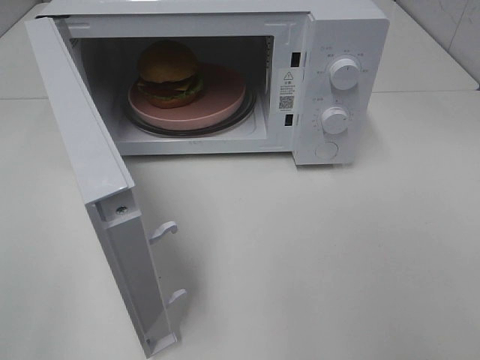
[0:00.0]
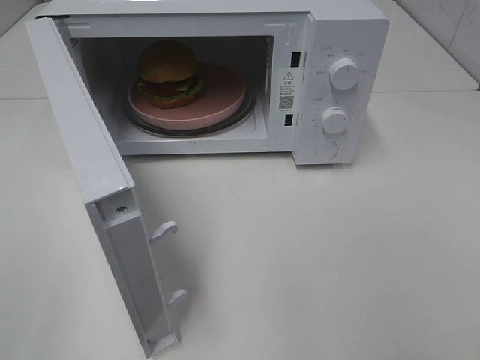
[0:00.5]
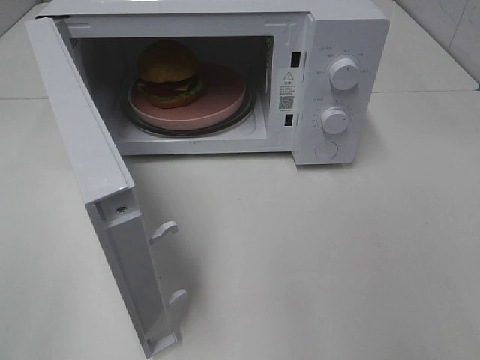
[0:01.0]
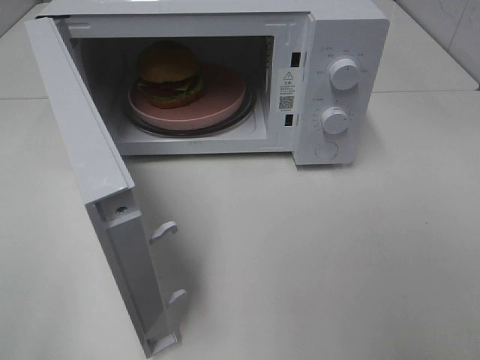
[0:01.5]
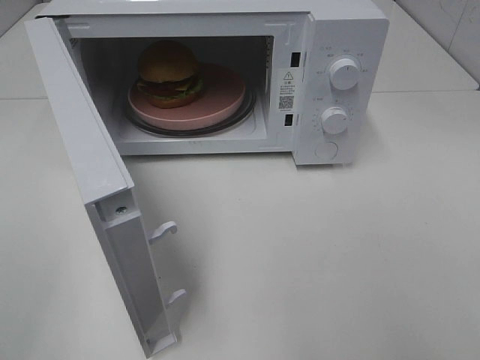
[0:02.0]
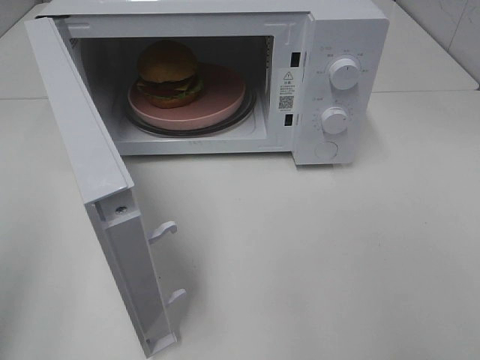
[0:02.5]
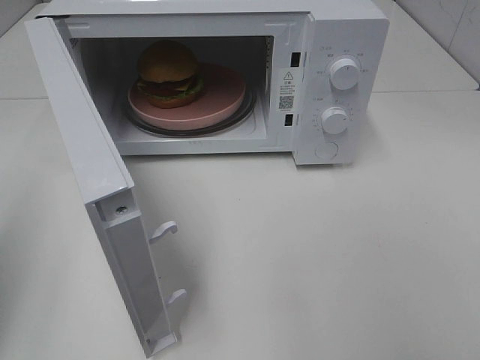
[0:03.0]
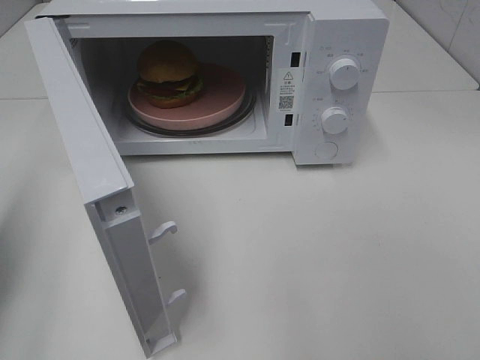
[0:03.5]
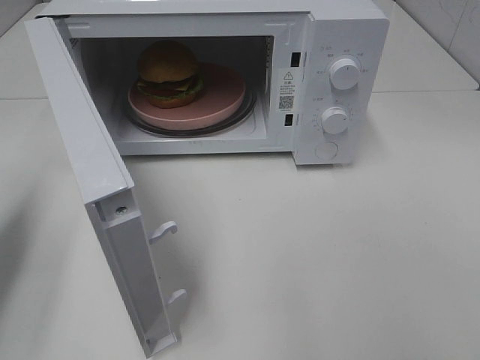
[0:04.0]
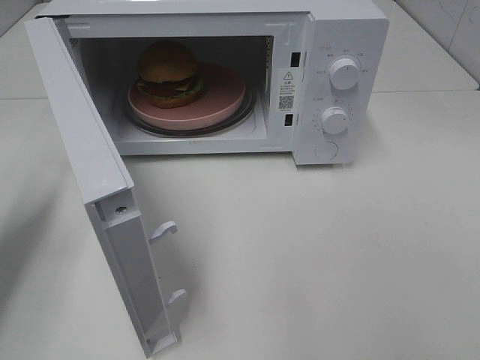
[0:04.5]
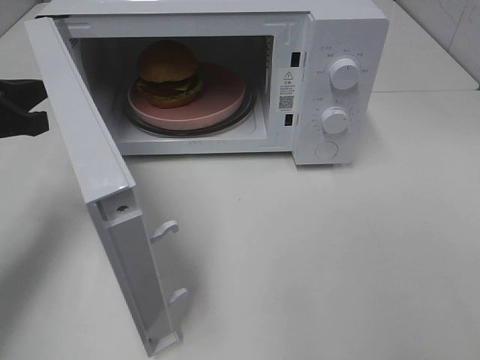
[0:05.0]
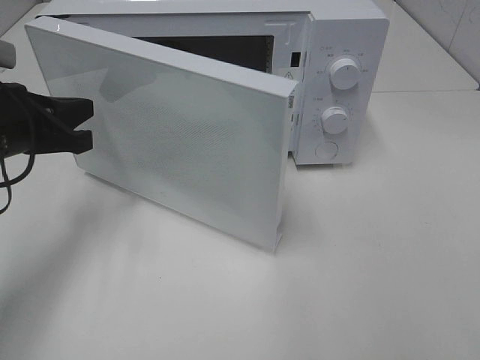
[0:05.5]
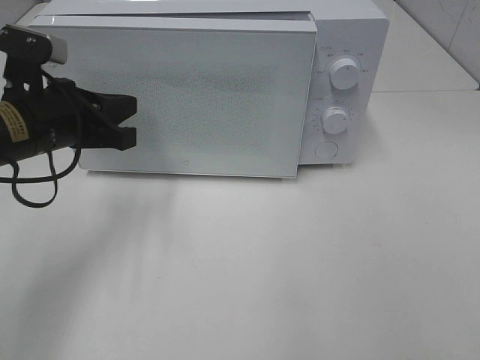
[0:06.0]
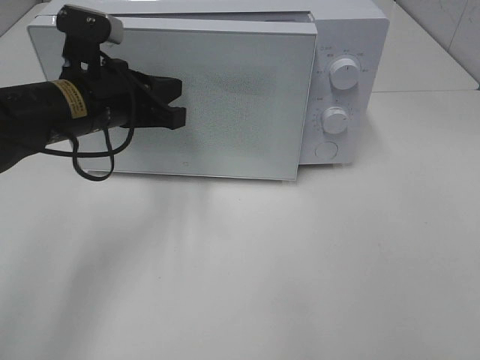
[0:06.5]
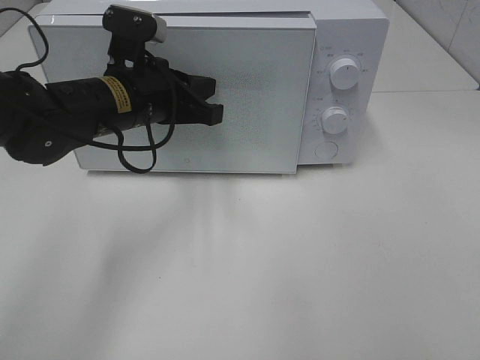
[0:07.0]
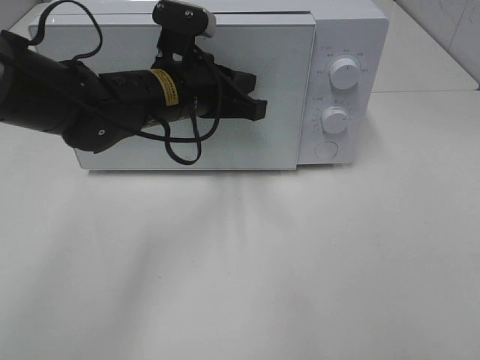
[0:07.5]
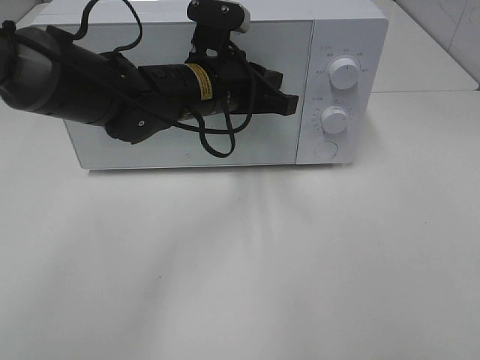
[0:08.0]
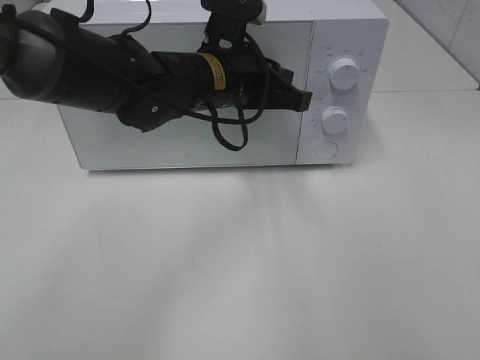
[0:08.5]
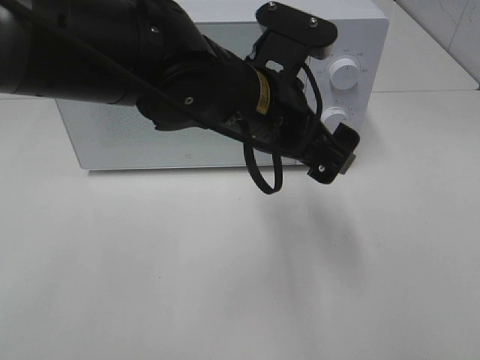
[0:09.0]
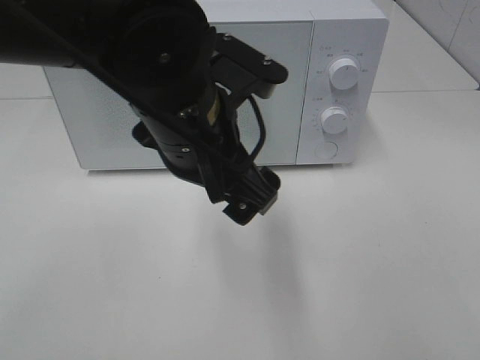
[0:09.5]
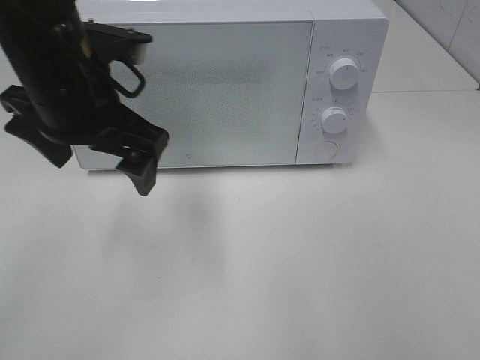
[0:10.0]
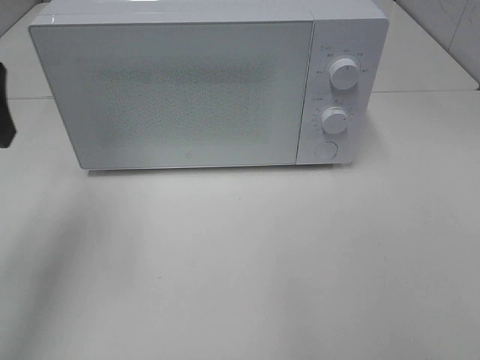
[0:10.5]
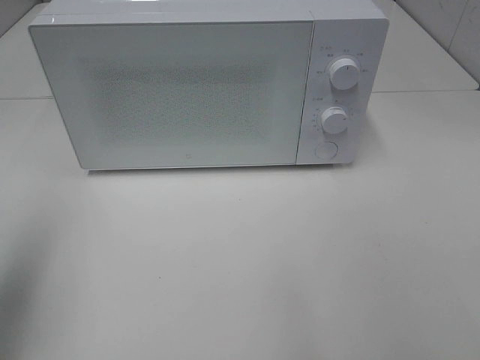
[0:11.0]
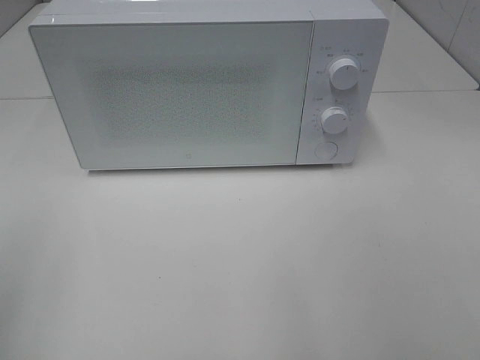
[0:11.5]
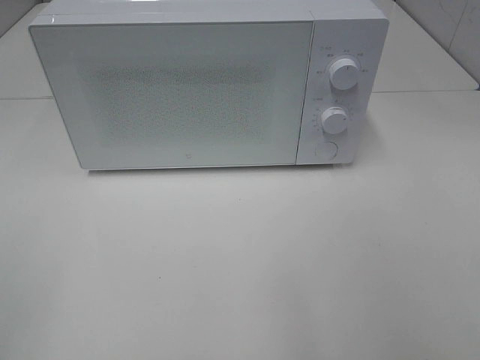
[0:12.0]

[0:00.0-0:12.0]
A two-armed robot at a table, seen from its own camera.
Task of the whole recording: Heat the burger.
Step, 0:00.0 to 0:07.5: Left hand: close the microwave door.
0:02.0 to 0:04.0: The left gripper is displaced forward and downward by some 20 cm, and closes.
0:04.0 to 0:06.0: The left gripper moves to the right and forward, about 15 cm.
0:06.0 to 0:08.0: The left gripper shifts about 15 cm to the right.
0:08.0 to 0:10.0: The left gripper goes some 15 cm to the left, backward and upward, and opens its fingers.
0:10.0 to 0:12.0: The left gripper moves backward and to the left, roughly 35 cm.

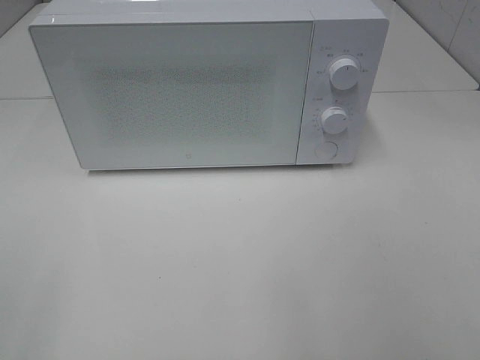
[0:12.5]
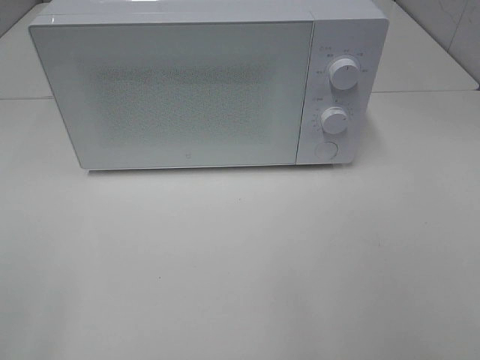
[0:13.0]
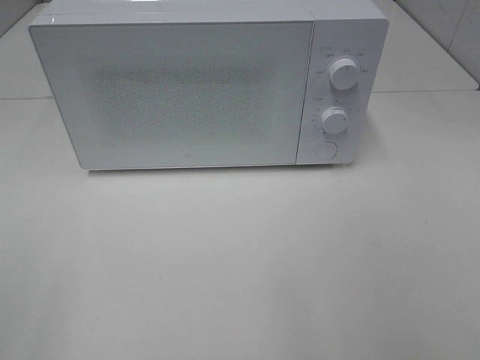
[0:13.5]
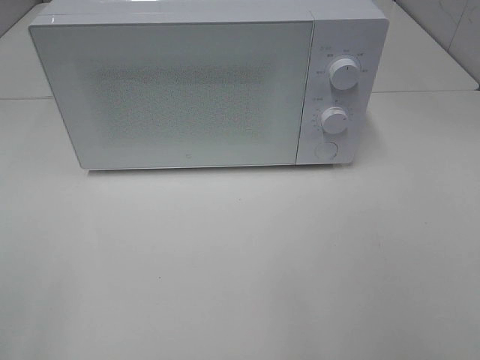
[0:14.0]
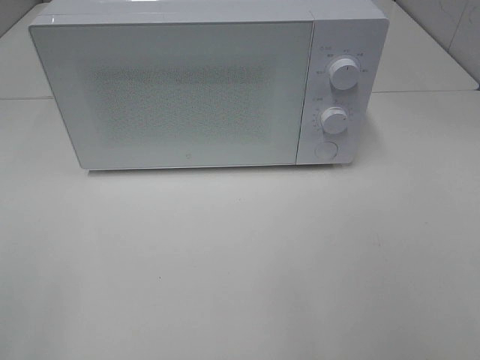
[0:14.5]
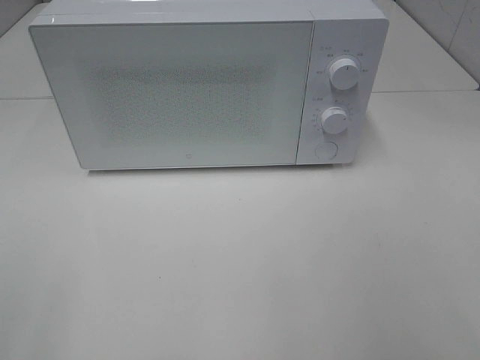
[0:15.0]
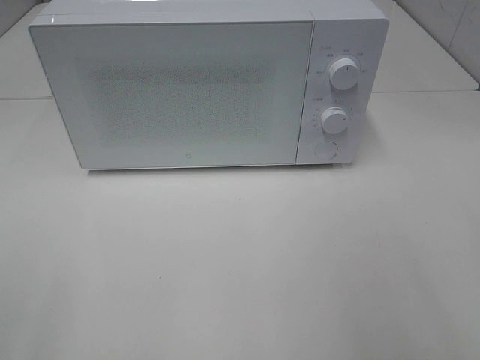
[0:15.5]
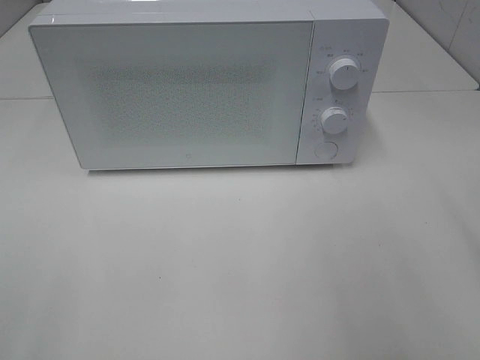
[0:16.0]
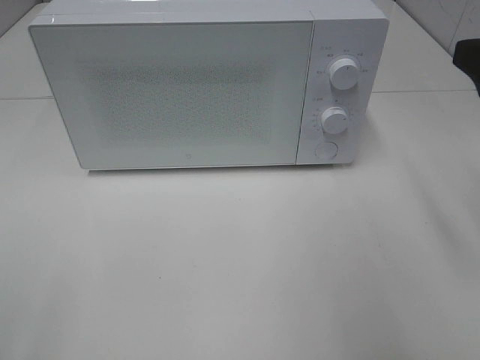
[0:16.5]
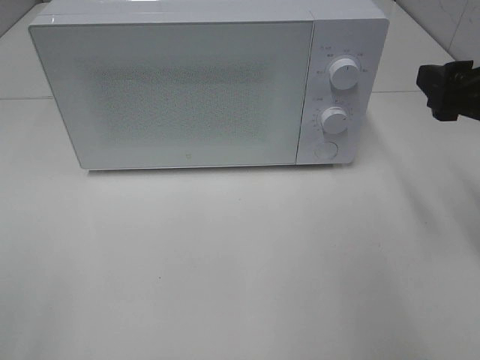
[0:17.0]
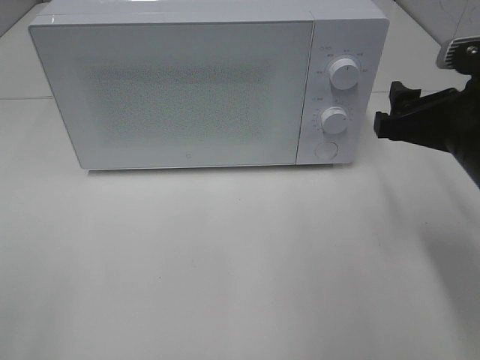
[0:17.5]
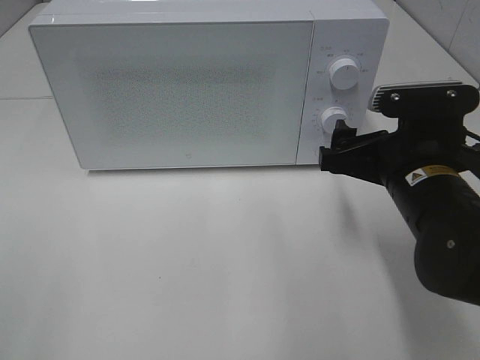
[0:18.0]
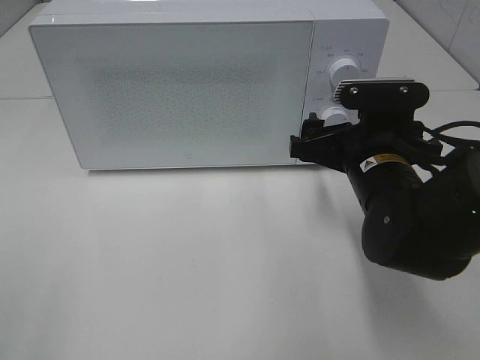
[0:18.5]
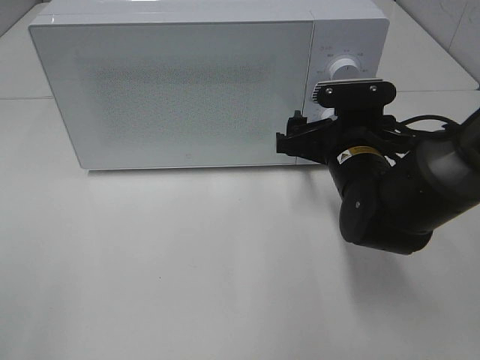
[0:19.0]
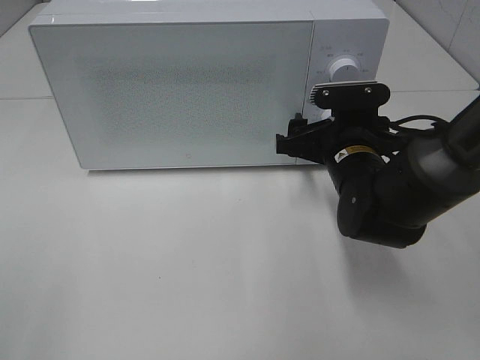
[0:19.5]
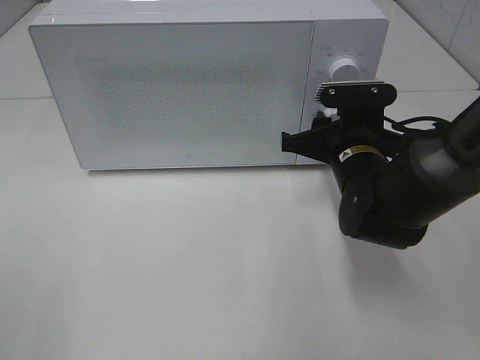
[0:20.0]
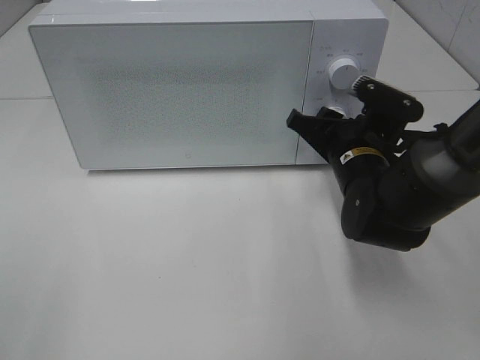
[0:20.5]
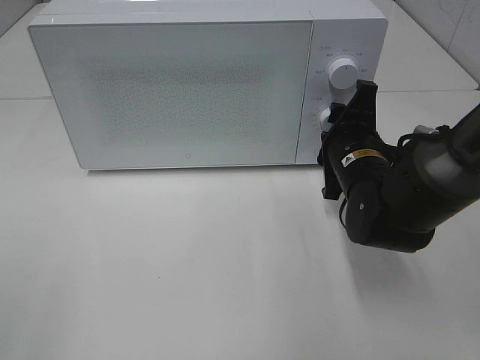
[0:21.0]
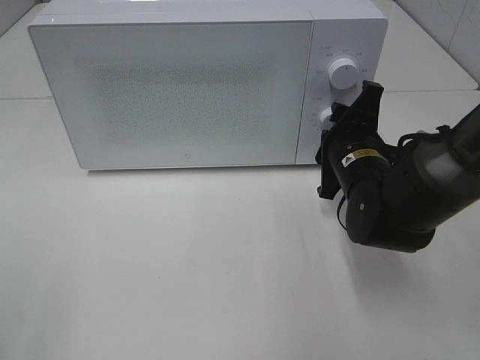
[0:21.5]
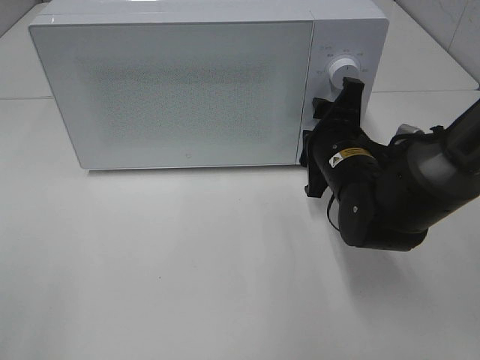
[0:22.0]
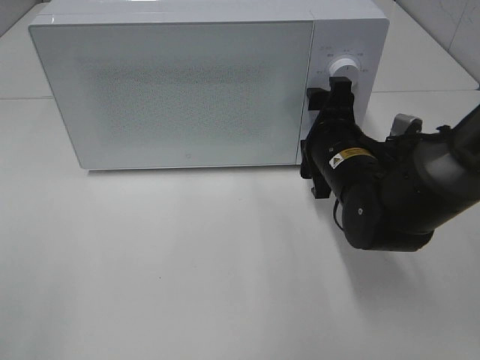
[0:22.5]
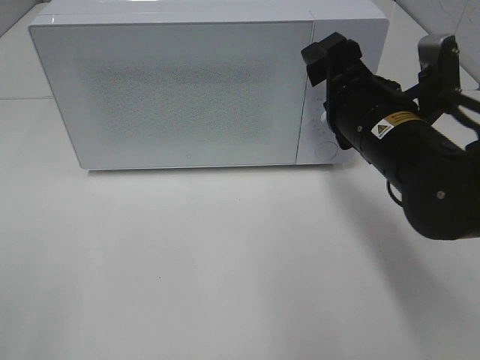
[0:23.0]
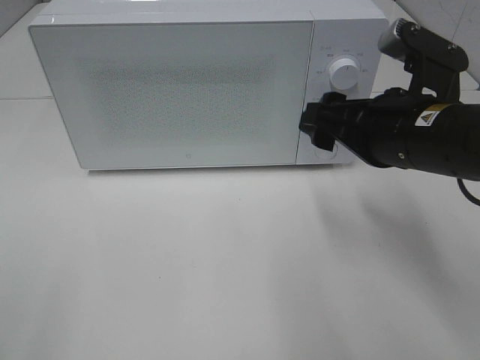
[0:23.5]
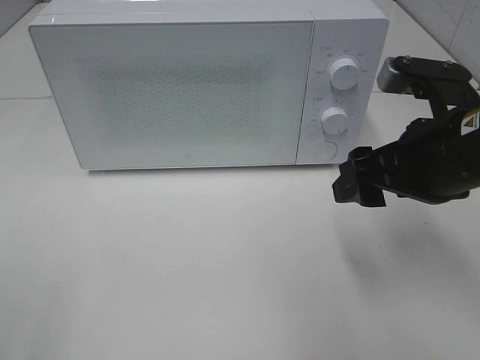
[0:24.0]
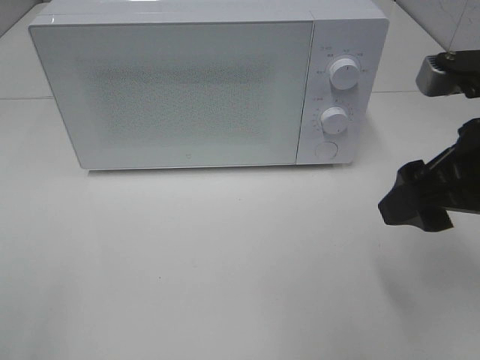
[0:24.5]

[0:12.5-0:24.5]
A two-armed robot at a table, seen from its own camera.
Task of the whole recording: Heat the burger.
Step, 0:12.5 to 0:21.5: Right hand: twist timer button.
0:16.5 to 0:18.5: The right gripper travels downward, to the left and forward by roughly 20 cm.
0:18.5 to 0:20.5: The right gripper shifts by roughly 5 cm, and closes.
0:20.5 to 0:22.5: The right gripper opens its fingers.
0:22.5 to 0:24.5: The right gripper is displaced upward, backward and to the right by about 20 cm.

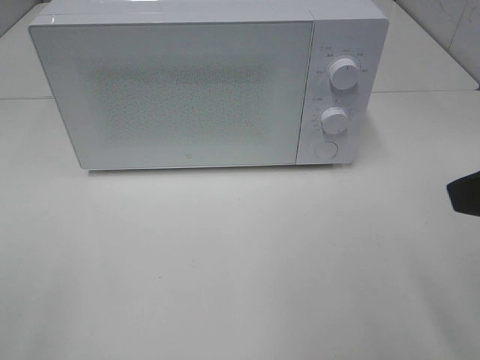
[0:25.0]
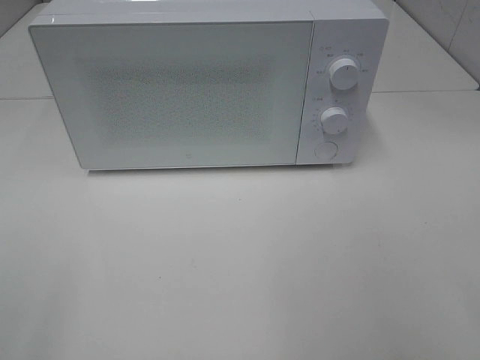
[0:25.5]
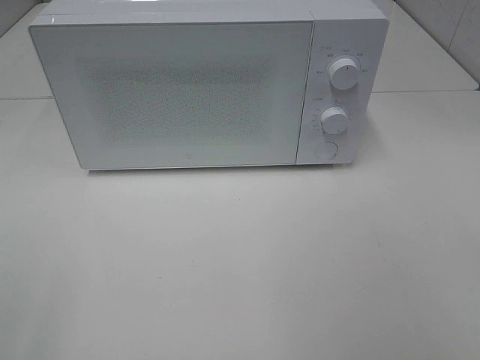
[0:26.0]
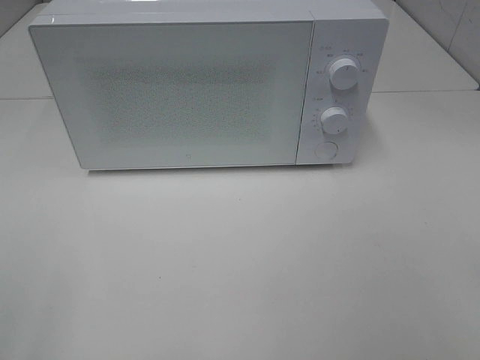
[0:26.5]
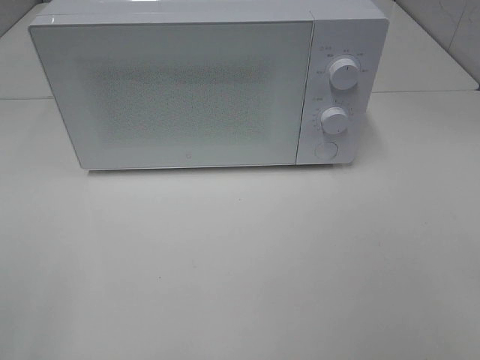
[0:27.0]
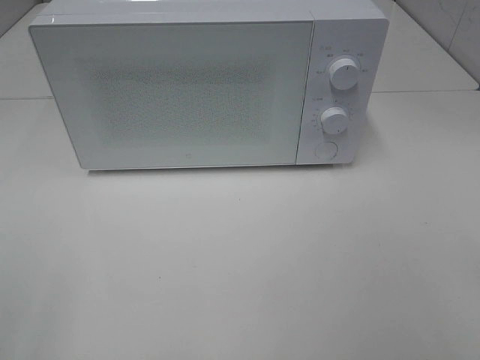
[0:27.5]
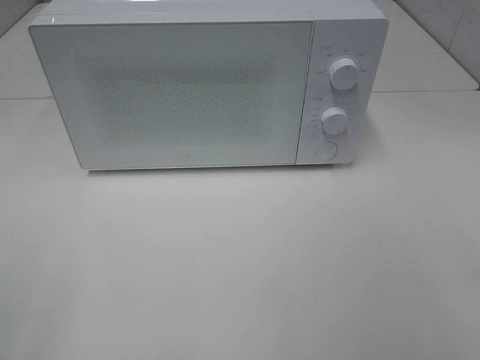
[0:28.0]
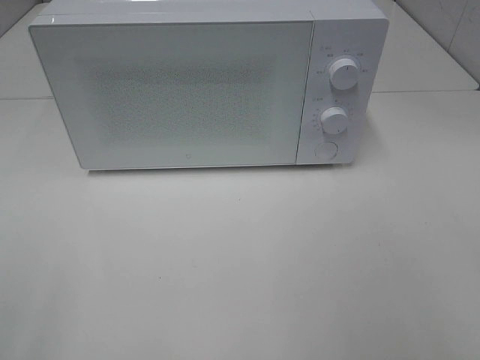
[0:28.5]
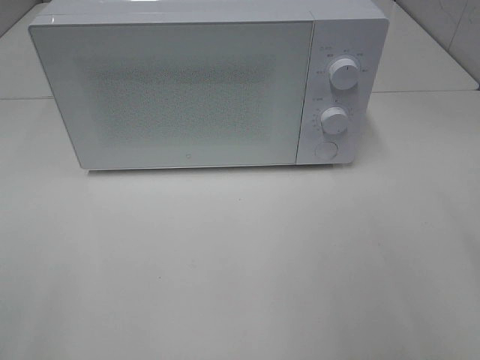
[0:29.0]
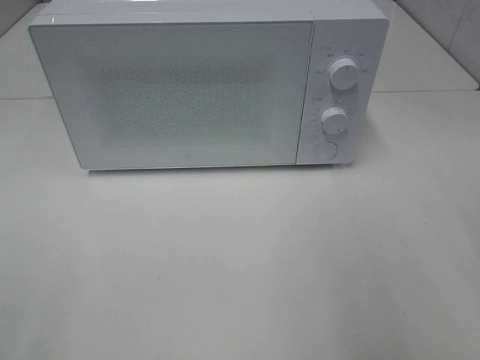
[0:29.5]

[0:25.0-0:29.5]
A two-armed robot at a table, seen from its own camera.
Task of the whole recording: Heat the burger.
0:25.0 to 0:27.0: The right gripper heads backward and to the right, covering about 15 cm.
